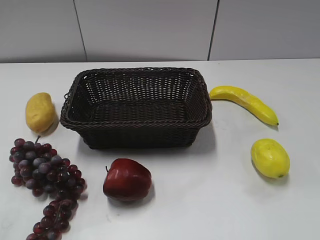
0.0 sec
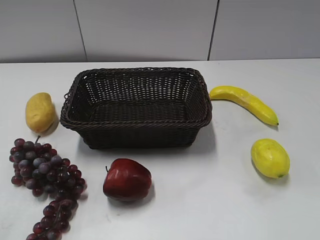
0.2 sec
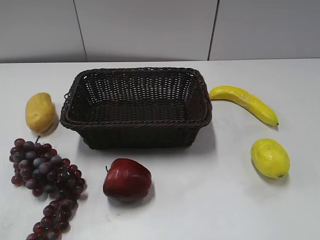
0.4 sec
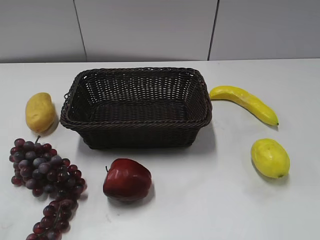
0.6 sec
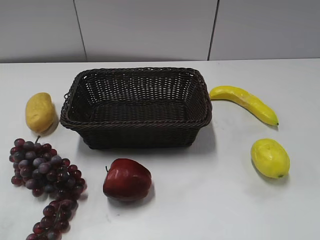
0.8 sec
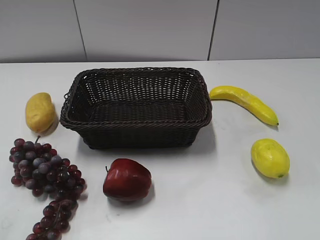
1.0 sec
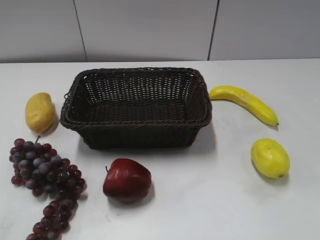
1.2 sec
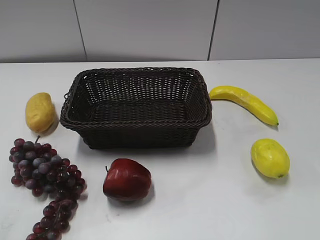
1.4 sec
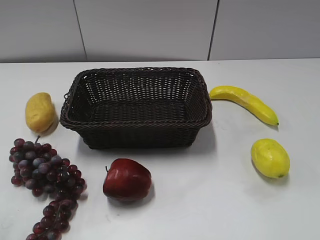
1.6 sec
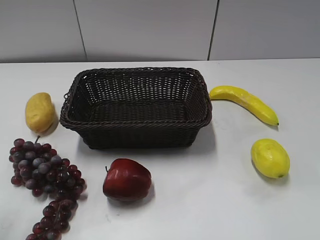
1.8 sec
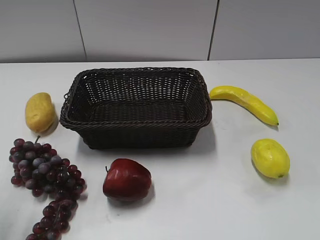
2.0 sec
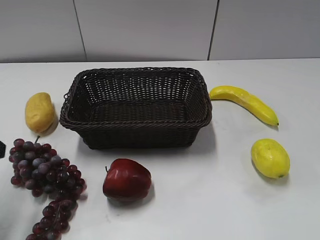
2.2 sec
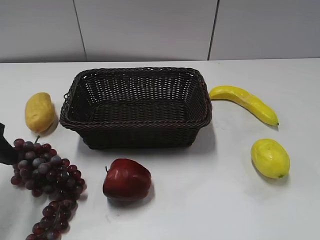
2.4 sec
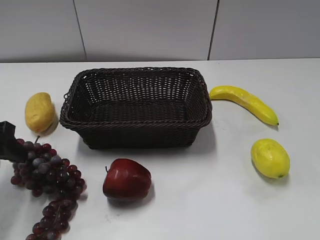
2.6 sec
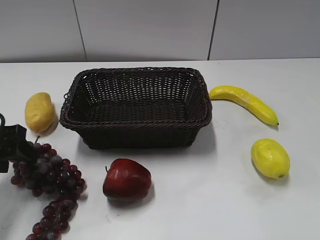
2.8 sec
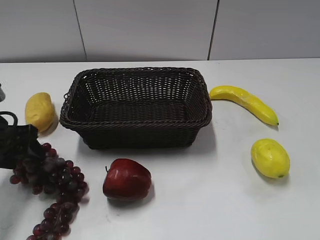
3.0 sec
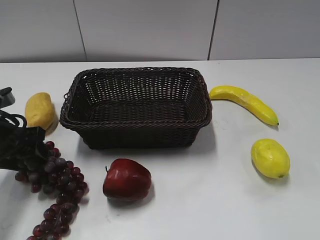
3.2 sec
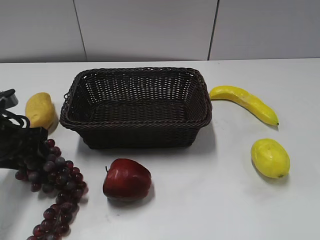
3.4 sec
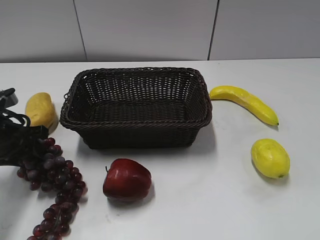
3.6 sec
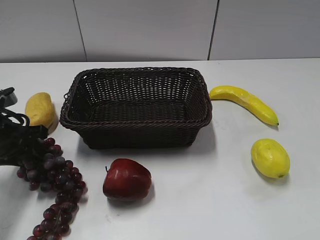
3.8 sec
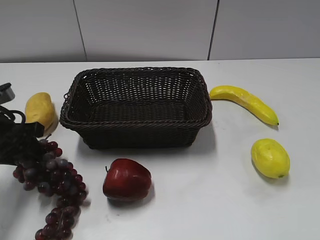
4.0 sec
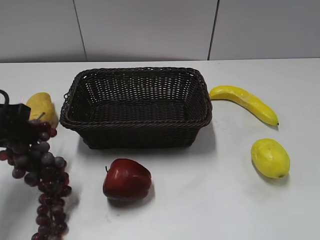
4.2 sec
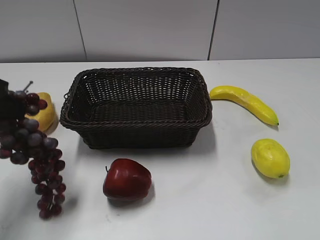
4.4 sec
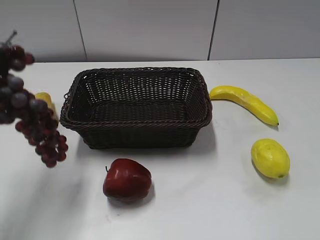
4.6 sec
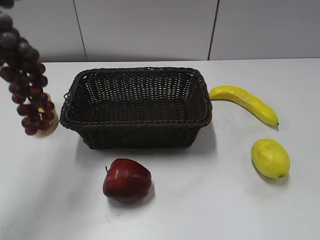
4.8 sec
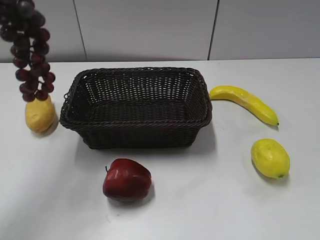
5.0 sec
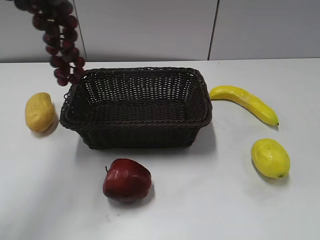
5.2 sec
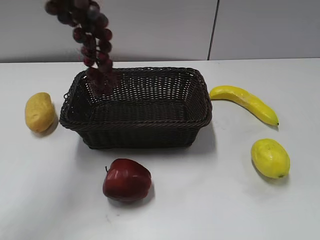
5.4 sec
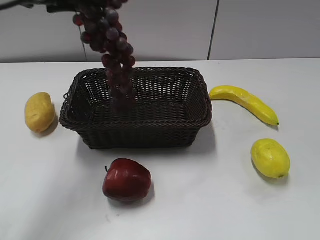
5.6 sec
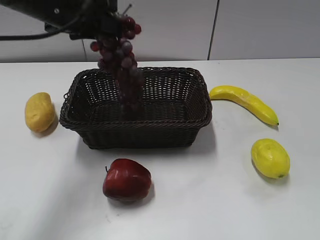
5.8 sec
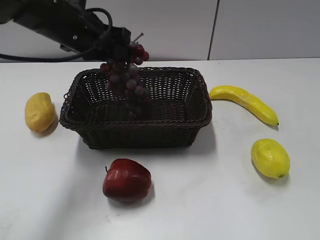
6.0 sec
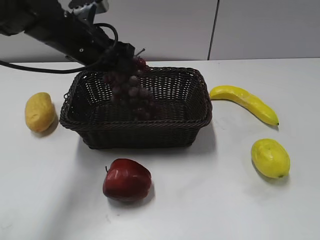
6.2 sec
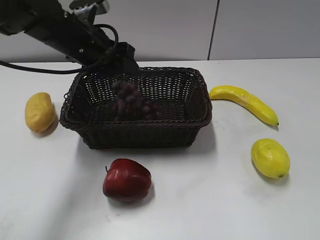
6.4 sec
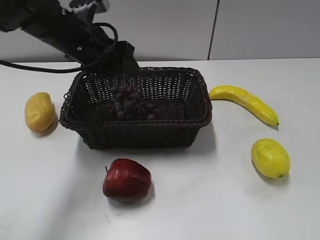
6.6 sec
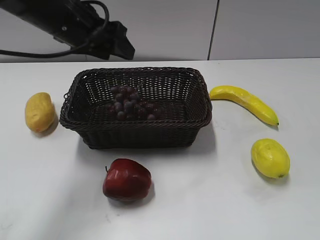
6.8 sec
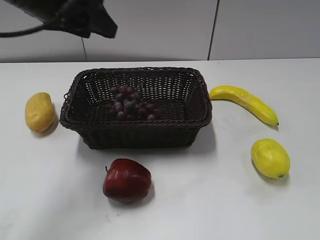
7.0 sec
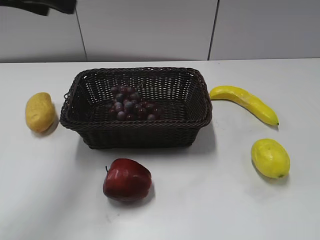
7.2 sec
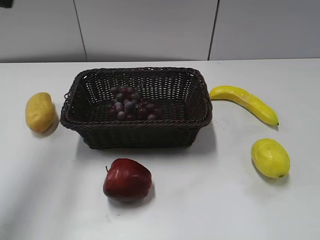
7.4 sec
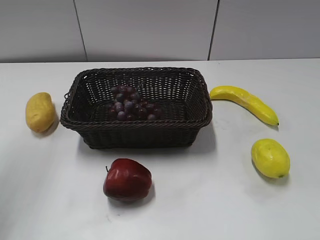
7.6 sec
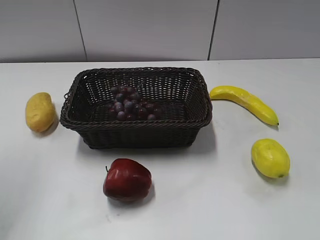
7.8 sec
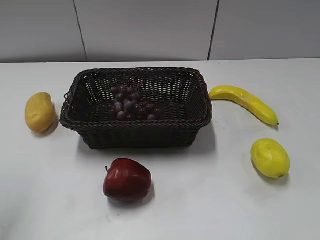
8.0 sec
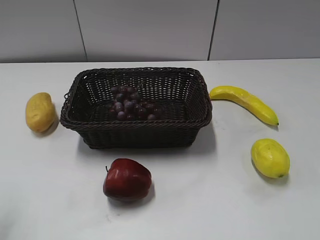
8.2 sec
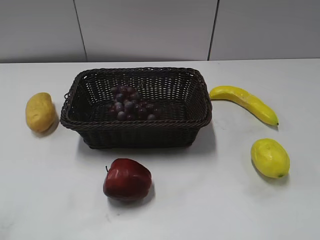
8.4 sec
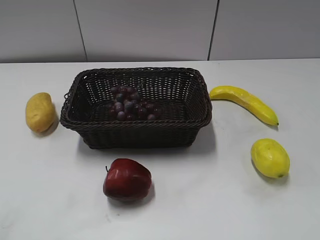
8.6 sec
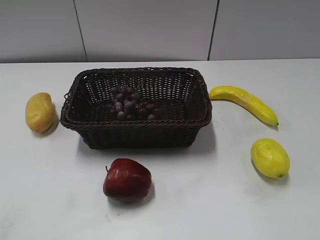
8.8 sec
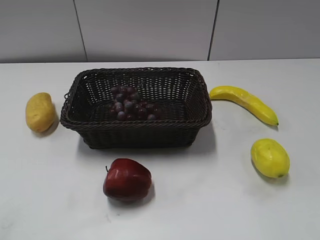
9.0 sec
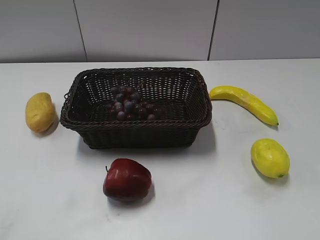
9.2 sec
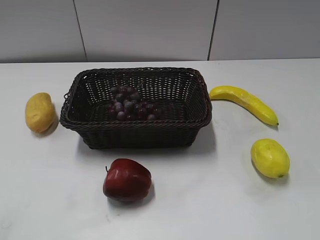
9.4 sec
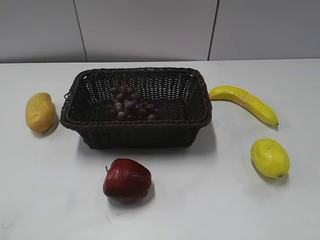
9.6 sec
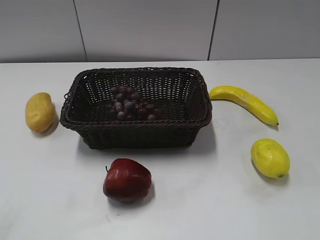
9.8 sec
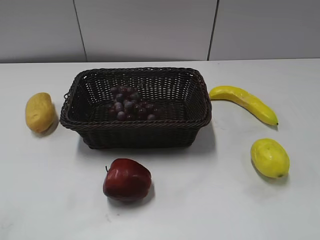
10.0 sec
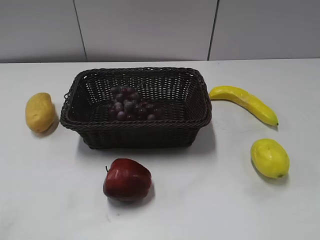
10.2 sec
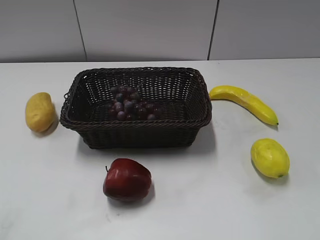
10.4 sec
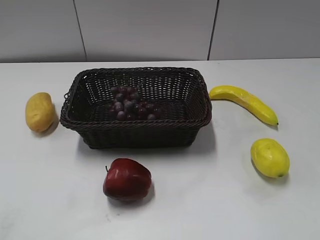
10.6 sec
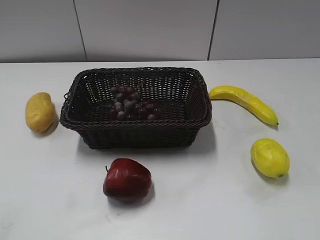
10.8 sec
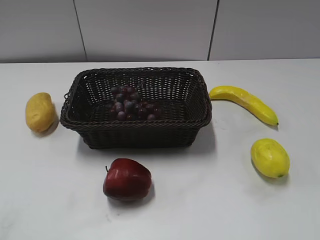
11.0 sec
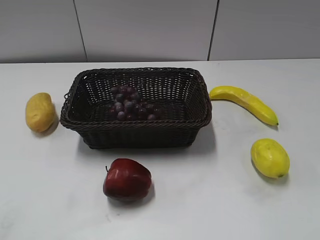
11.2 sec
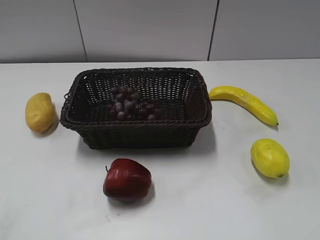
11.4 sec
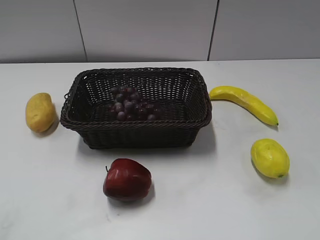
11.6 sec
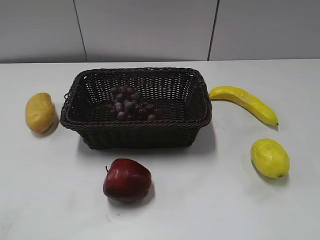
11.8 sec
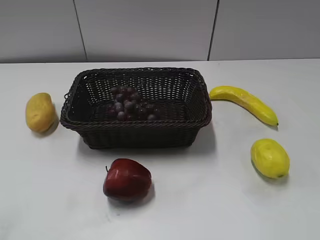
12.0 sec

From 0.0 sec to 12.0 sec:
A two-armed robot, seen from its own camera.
Step, from 2.2 sec to 4.2 sec: Grasp the grape with left gripper.
Step, from 4.4 sec to 6.4 sec: Place the grape in the basket with left gripper.
From 1.6 sec to 3.0 sec: The left gripper travels forward and downward by approximately 25 cm.
From 3.0 sec to 4.4 sec: The left gripper is displaced upward by some 10 cm, and closes.
From 4.4 sec to 6.0 sec: The left gripper is displaced forward and to the right by about 20 cm, and reaches roughly 15 cm upward, then returns.
From 6.0 sec to 7.6 sec: The left gripper moves to the left, upward and backward, roughly 25 cm, and opens.
From 7.6 sec to 9.0 sec: The left gripper goes some 25 cm backward.
From 10.4 sec to 12.0 sec: The two grippers keep their place.
